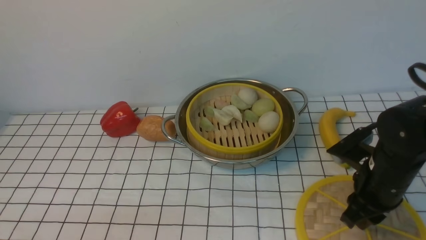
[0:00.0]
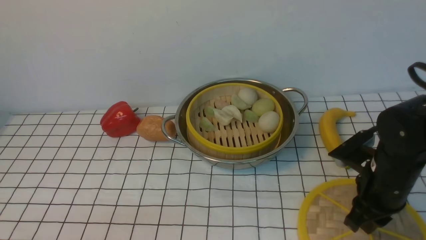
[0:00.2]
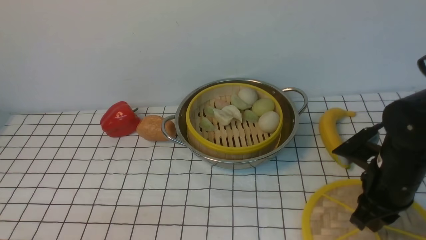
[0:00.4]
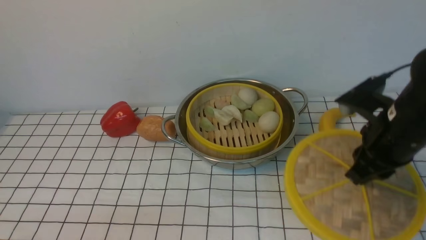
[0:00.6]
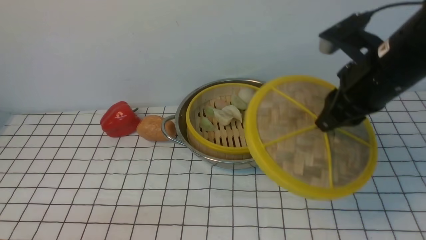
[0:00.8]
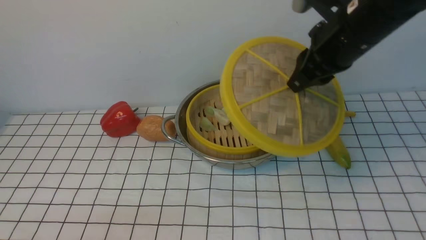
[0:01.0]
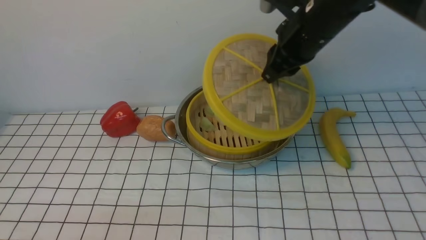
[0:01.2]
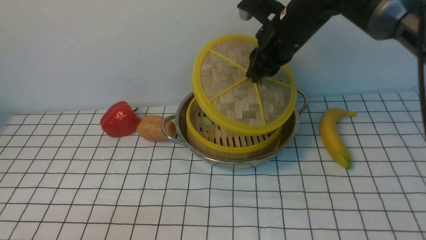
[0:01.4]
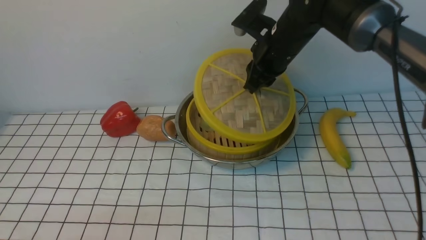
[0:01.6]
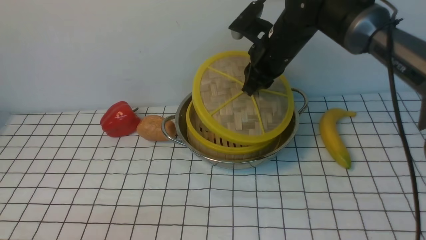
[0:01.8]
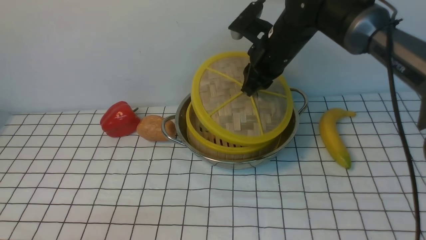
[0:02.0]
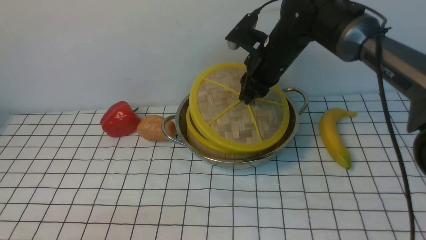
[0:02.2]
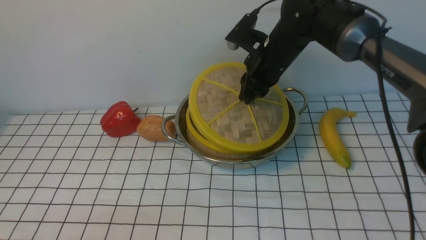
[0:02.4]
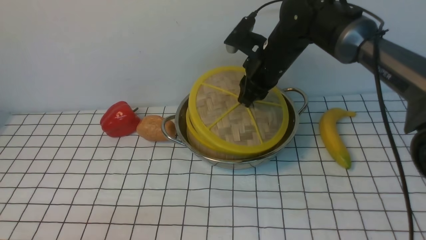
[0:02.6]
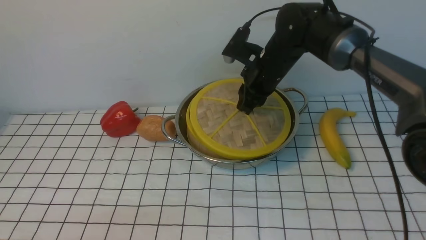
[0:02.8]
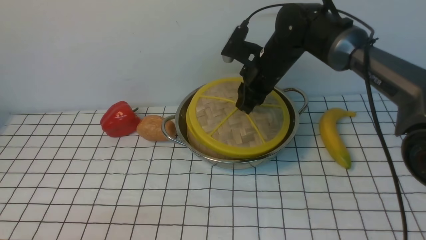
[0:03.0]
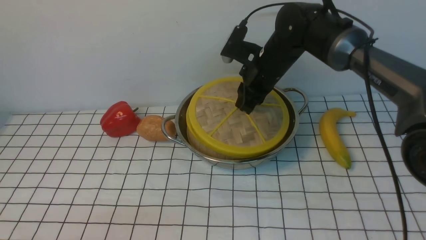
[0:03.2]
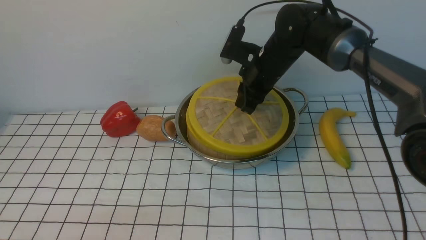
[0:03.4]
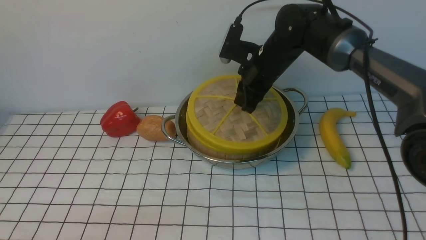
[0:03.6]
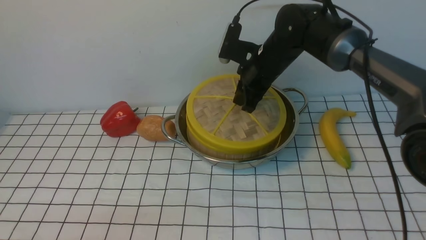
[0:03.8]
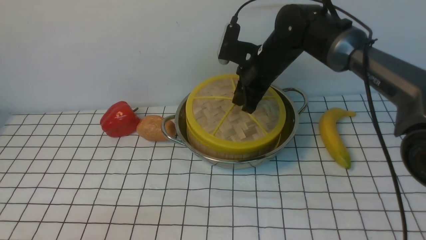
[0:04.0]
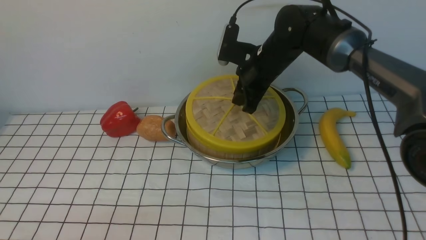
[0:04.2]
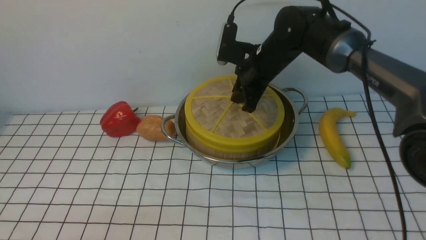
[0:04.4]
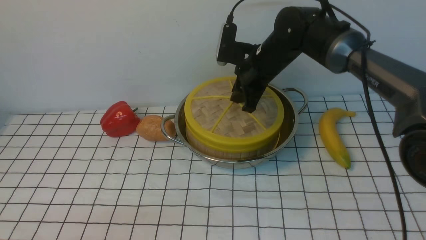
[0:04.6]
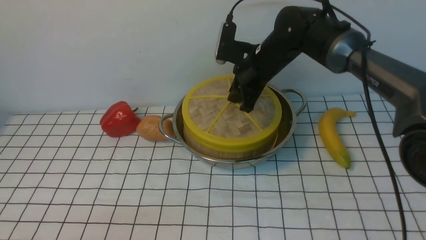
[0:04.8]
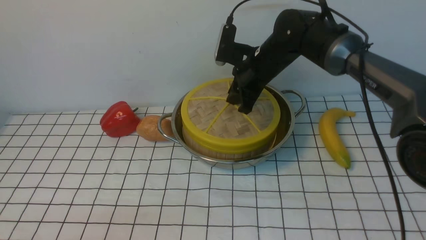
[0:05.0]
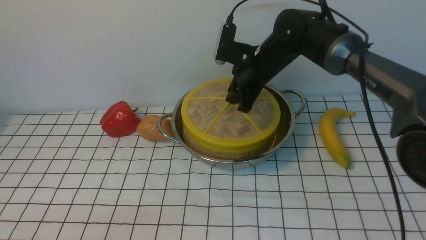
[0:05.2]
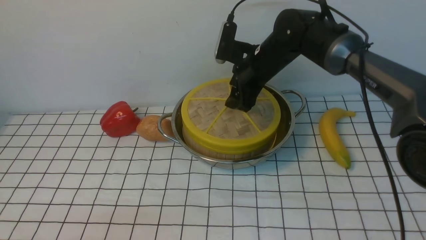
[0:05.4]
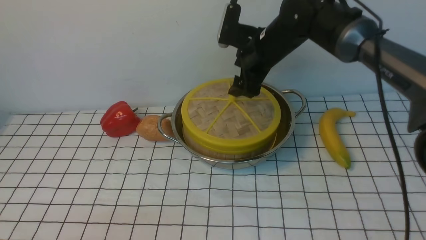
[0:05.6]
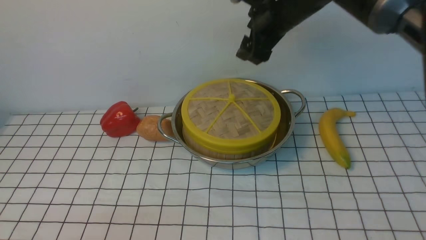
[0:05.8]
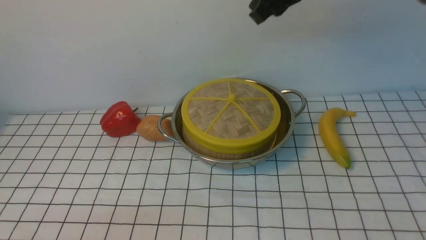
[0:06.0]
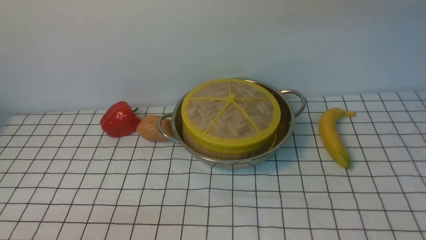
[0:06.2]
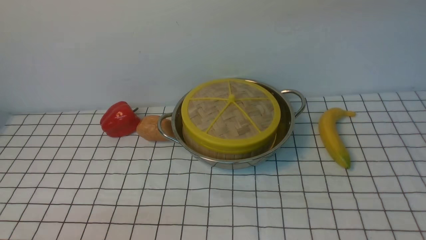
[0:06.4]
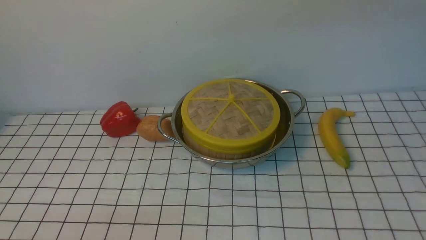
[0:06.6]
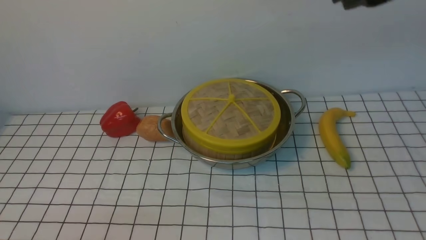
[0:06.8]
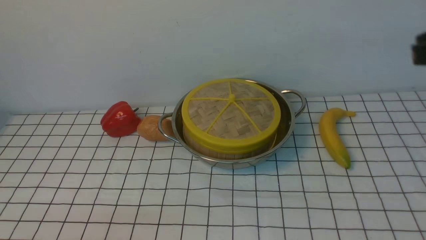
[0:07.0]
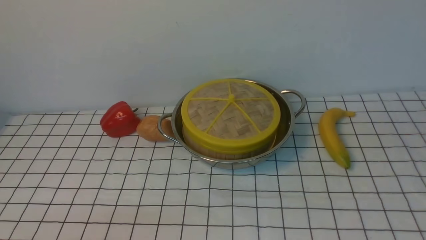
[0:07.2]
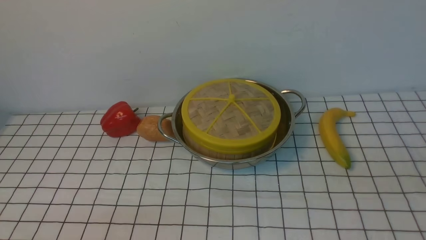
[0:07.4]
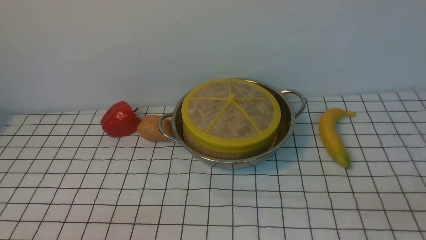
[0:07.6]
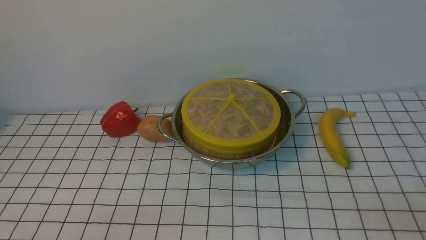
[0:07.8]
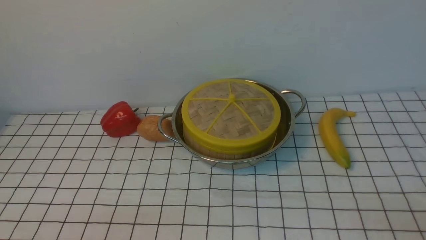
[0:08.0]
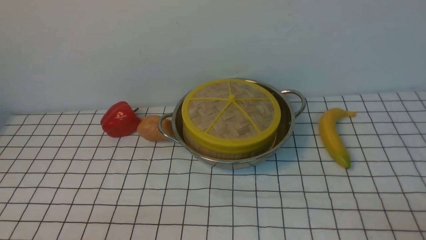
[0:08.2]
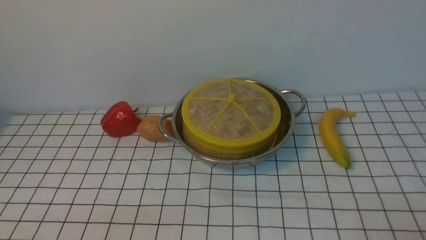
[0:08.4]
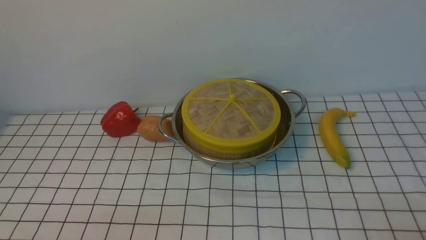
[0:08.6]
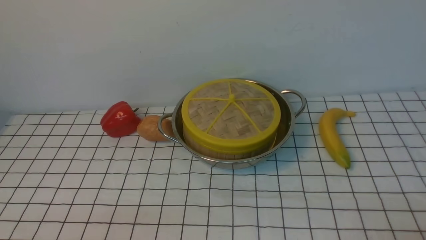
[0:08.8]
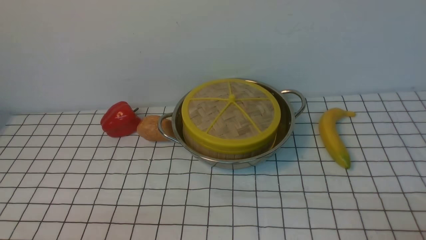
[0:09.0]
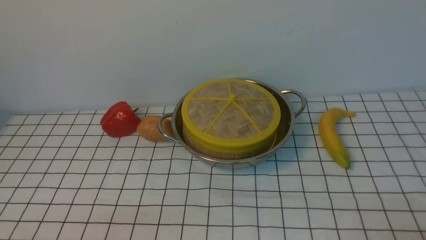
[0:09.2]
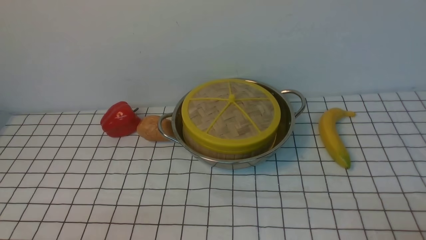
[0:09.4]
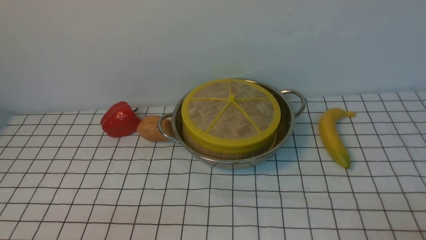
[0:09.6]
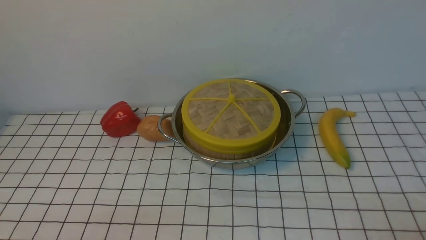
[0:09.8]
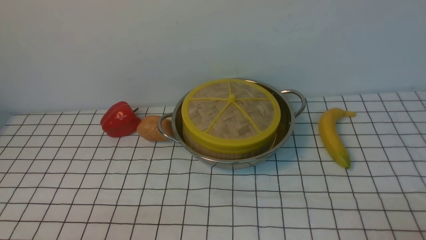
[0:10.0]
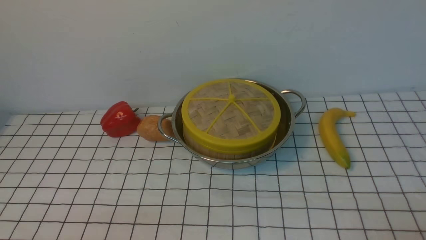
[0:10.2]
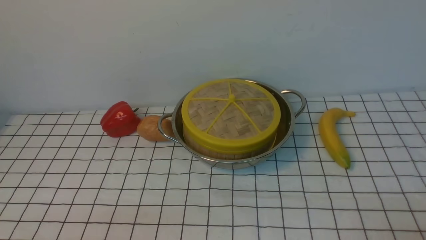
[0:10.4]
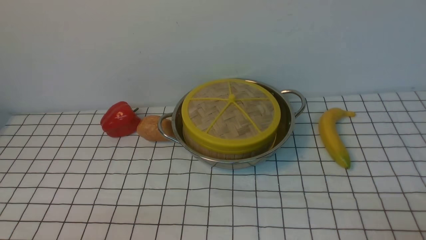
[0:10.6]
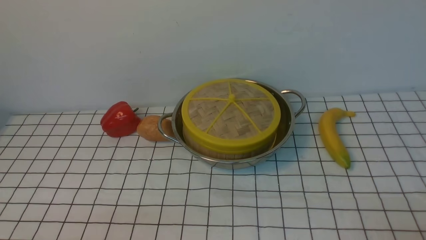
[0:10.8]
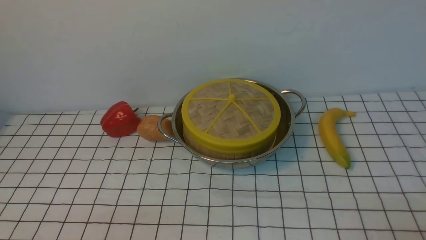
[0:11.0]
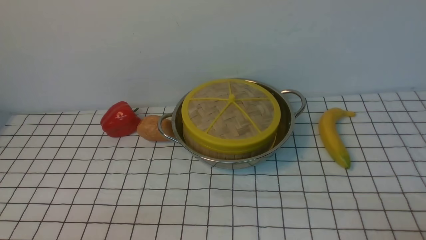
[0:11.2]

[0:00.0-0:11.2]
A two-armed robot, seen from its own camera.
Task of the whole recording: place the steamer in the pot on the white tablecloth, and put the lid on the steamer.
Step, 0:00.8 to 0:05.6: use the right arm to place the steamer lid on the steamer.
0:00.0 to 0:01.6: The right gripper goes roughly 25 cm forward, to the left and upward.
0:01.6 to 0:03.2: The right gripper shifts about 5 cm downward.
0:03.2 to 0:04.8: The grippers stay close to where they were, moving slightly.
0:04.8 to 0:06.4: The right gripper is displaced upward and backward by some 25 cm, and closes.
0:09.6 to 0:11.2: Both grippers stay about where they are.

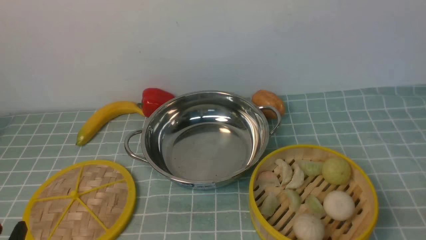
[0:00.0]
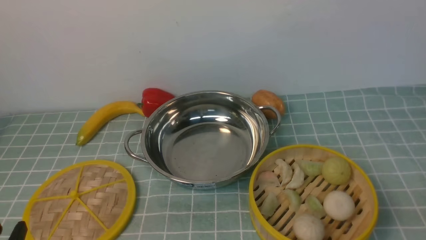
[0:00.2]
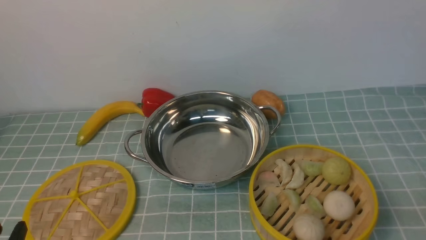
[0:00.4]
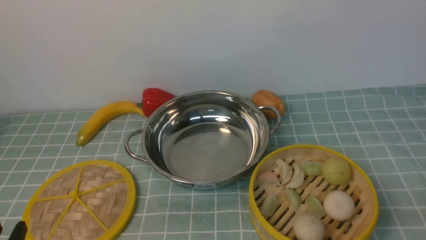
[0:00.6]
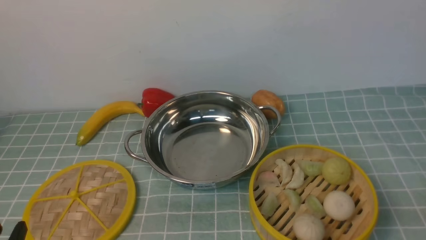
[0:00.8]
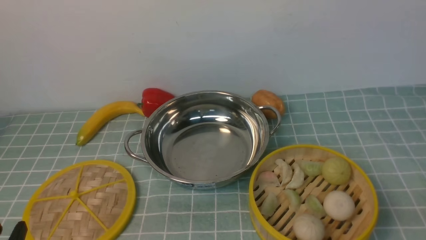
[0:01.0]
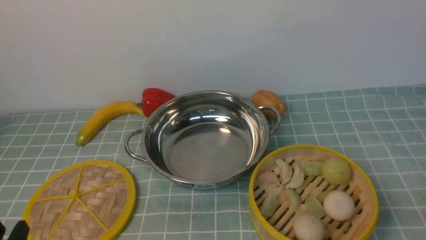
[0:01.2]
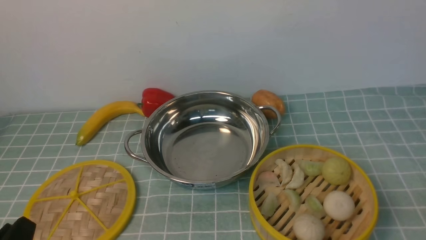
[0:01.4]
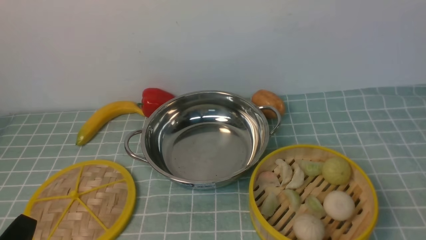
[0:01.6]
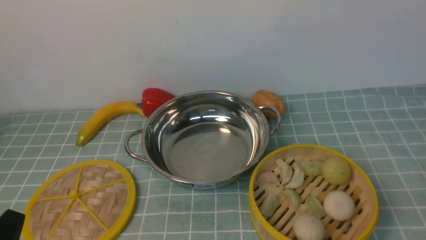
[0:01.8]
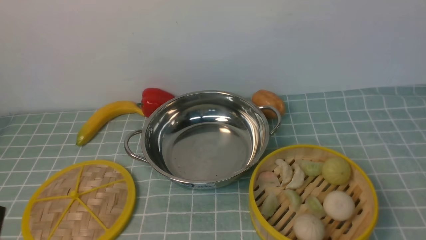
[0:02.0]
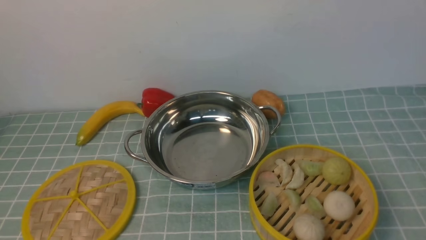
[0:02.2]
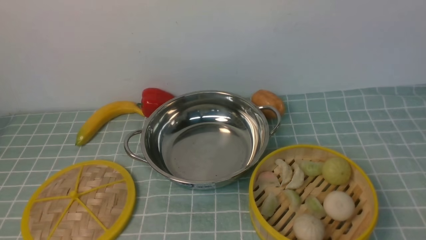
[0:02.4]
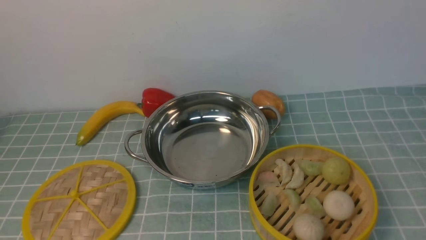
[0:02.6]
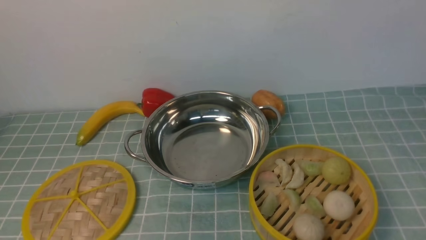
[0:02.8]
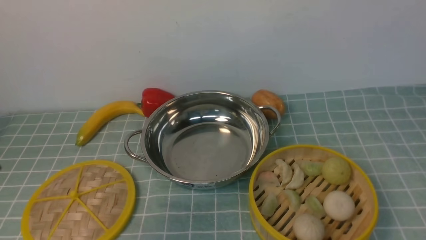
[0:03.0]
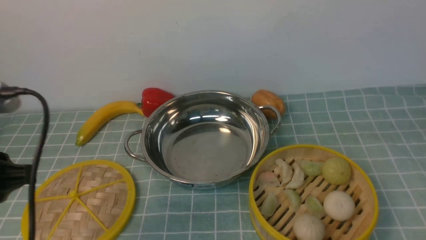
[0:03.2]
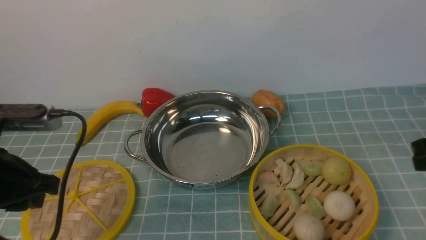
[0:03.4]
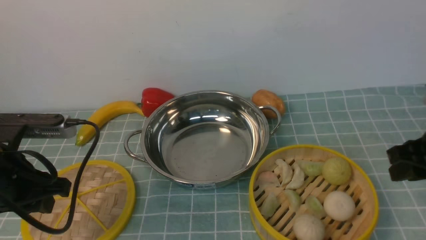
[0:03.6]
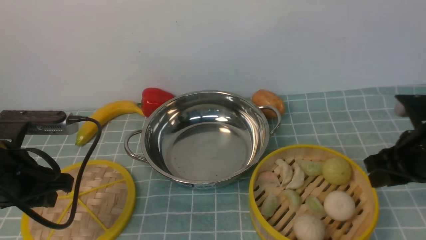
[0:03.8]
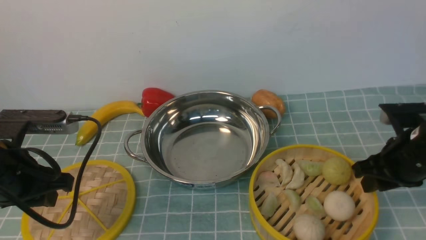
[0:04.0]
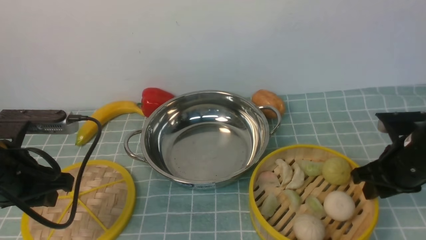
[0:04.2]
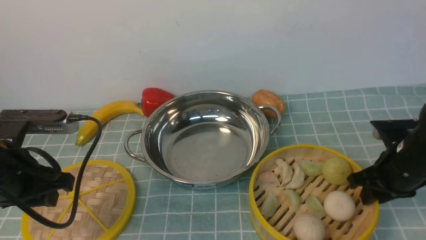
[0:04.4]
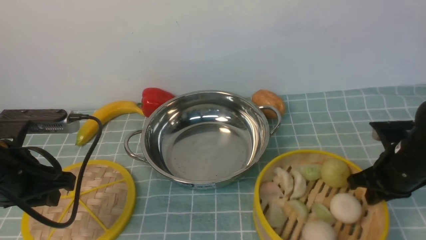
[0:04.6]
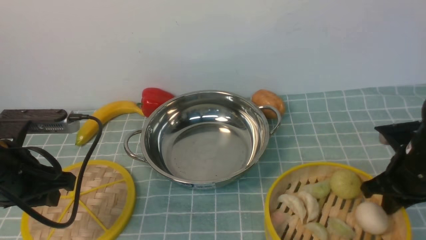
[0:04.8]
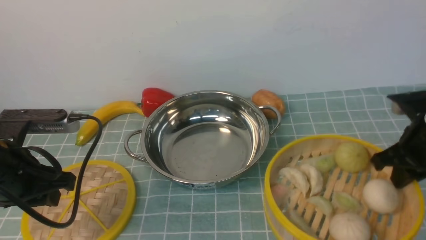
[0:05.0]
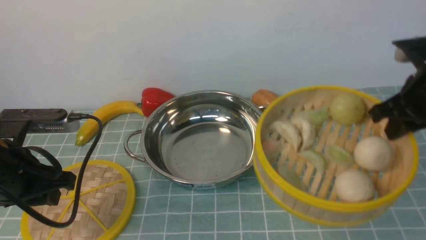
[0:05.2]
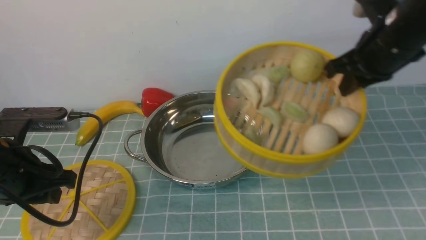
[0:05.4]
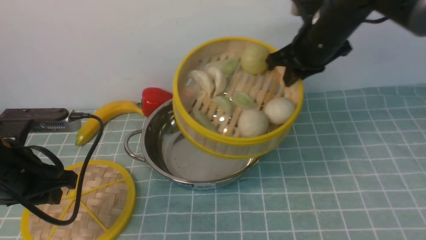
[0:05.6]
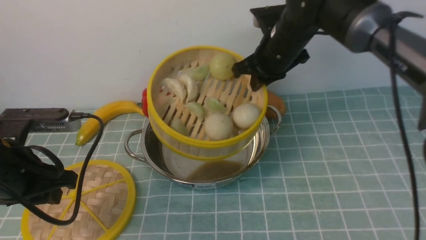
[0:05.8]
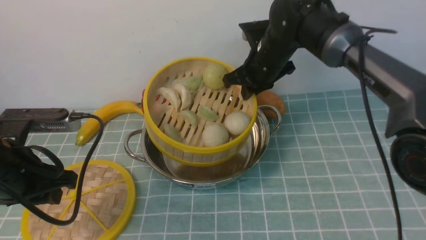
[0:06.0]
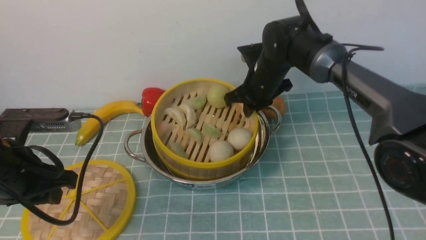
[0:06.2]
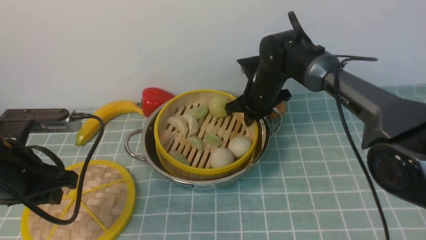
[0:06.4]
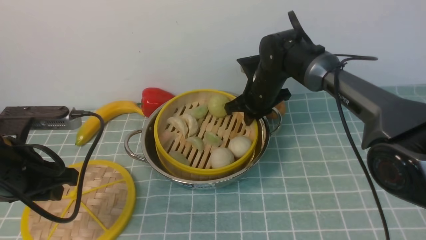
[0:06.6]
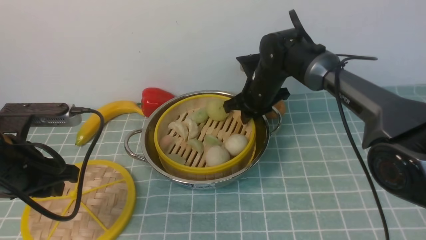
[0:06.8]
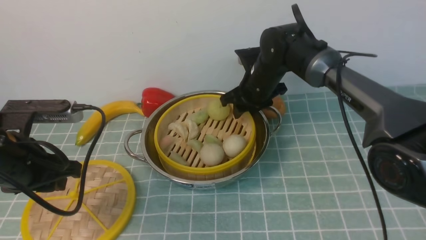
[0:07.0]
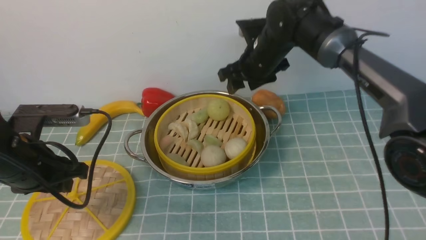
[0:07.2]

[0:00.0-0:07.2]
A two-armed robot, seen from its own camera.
Task of the whole recording: place the steamer in the pot on the blue tablecloth, and put the lid on the steamer.
Step, 0:00.0 to 0:05.2: use the right arm to lift the steamer closest to it.
0:01.4 to 0:02.8: The left gripper heads upward, covering about 15 cm.
0:02.8 to 0:04.4: The right gripper goes roughly 30 cm downward and forward; the left gripper travels forward and downward by about 20 cm.
0:04.4 to 0:05.8: The right gripper moves to the left, forward and upward, some 25 cm.
0:05.8 to 0:07.2: The right gripper moves approximately 10 cm downward and comes back, and opens its fingers.
